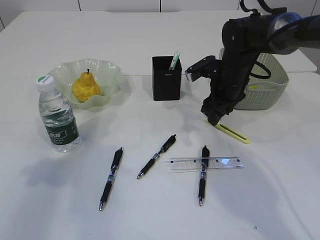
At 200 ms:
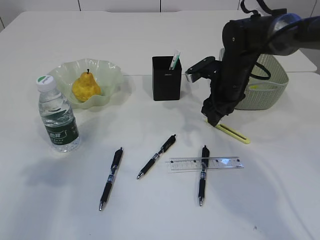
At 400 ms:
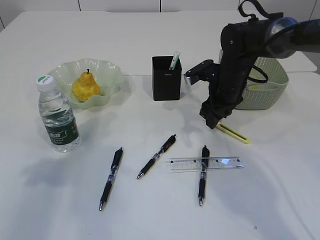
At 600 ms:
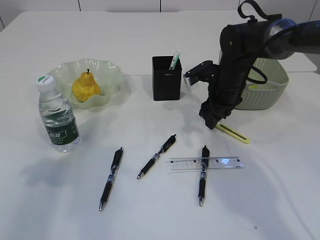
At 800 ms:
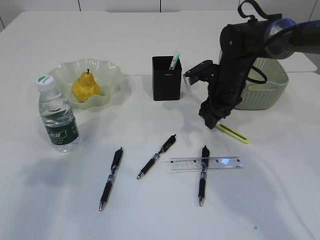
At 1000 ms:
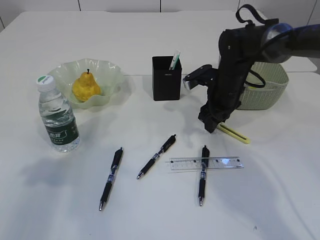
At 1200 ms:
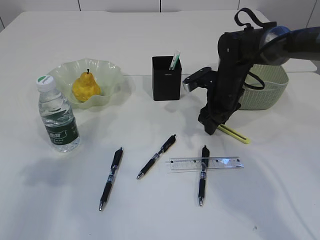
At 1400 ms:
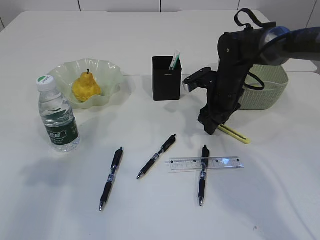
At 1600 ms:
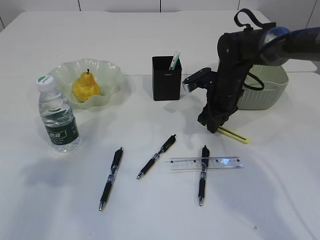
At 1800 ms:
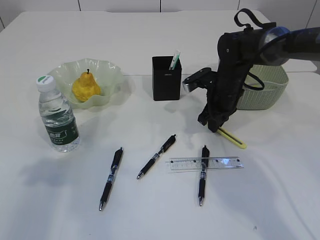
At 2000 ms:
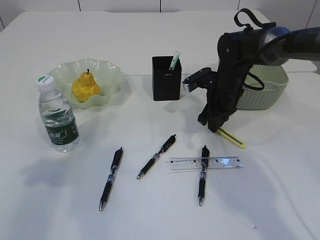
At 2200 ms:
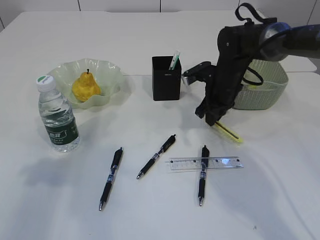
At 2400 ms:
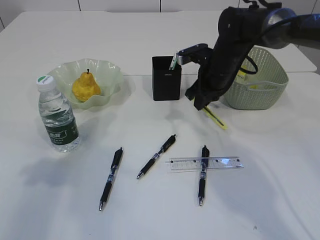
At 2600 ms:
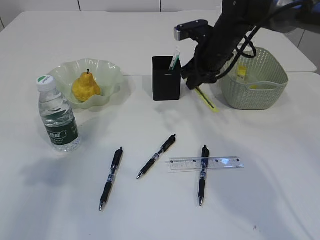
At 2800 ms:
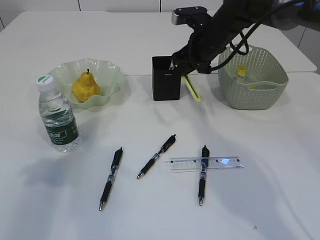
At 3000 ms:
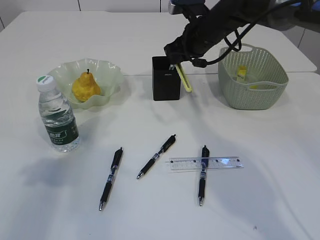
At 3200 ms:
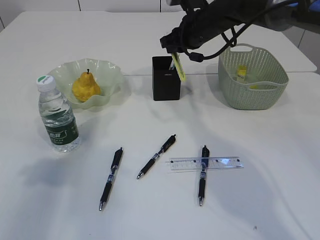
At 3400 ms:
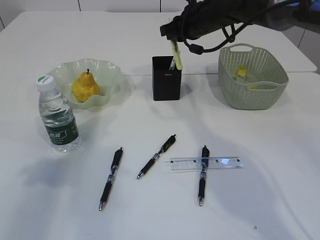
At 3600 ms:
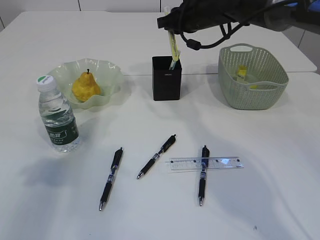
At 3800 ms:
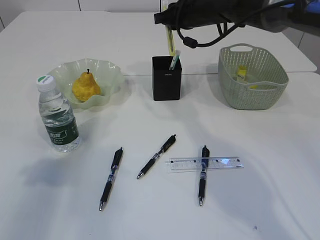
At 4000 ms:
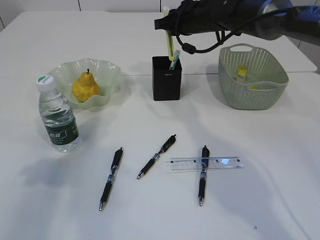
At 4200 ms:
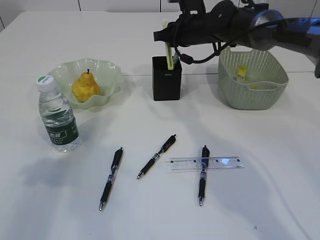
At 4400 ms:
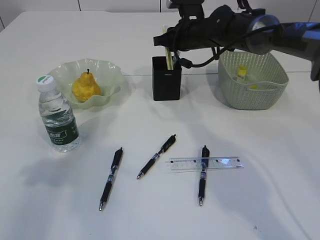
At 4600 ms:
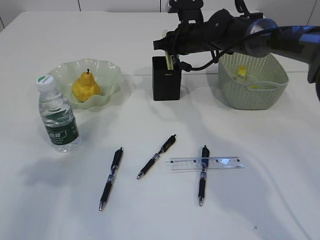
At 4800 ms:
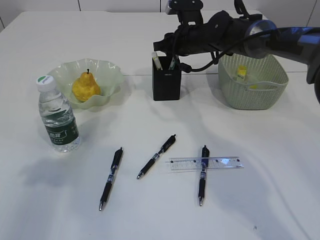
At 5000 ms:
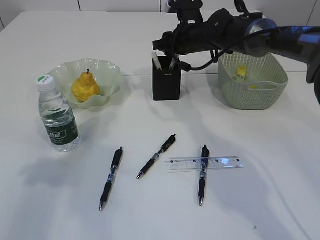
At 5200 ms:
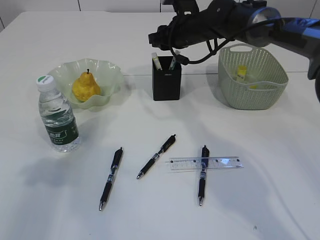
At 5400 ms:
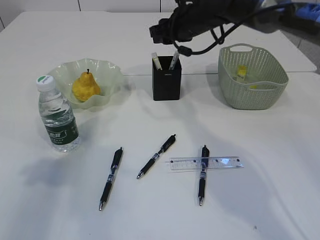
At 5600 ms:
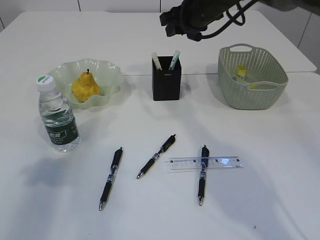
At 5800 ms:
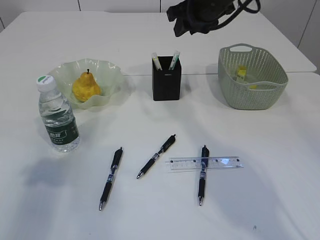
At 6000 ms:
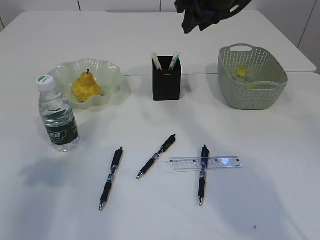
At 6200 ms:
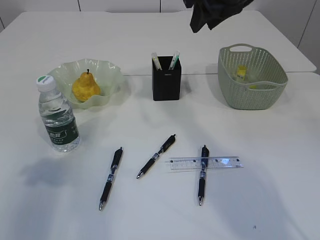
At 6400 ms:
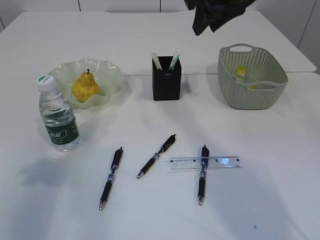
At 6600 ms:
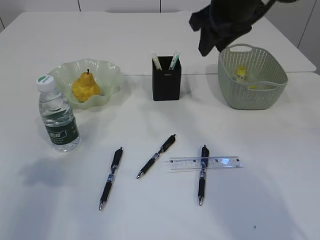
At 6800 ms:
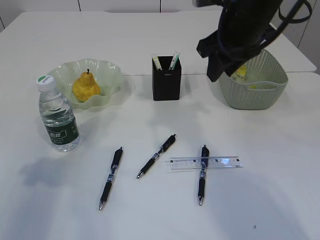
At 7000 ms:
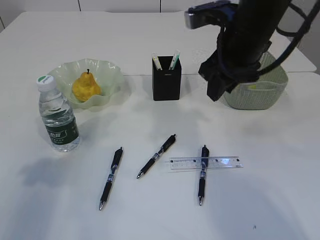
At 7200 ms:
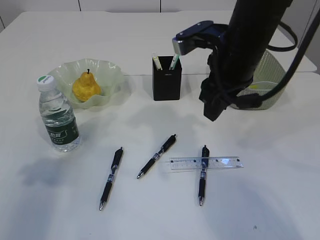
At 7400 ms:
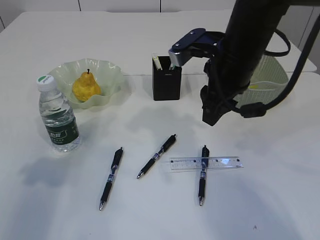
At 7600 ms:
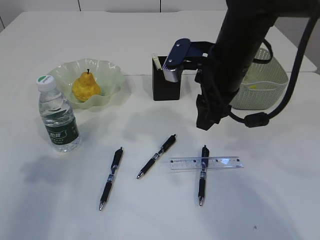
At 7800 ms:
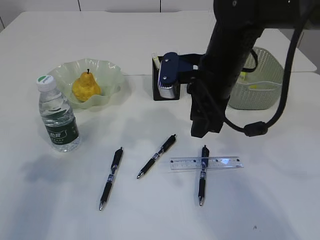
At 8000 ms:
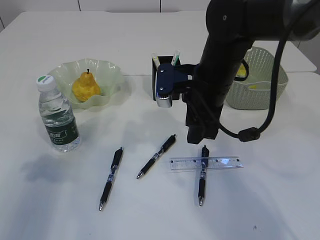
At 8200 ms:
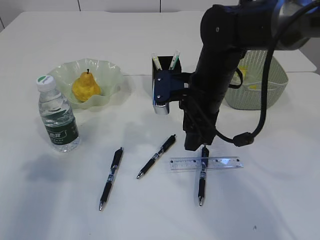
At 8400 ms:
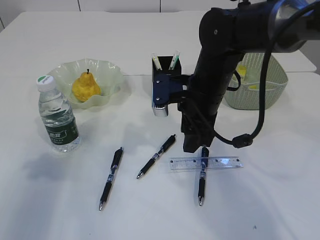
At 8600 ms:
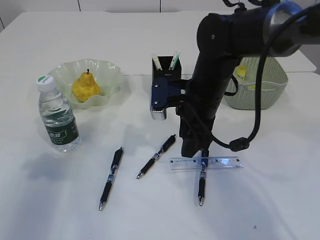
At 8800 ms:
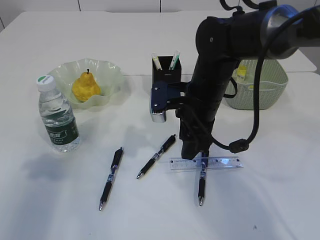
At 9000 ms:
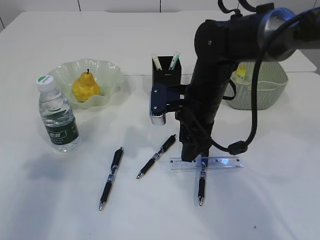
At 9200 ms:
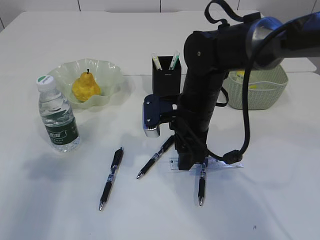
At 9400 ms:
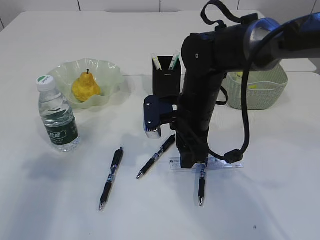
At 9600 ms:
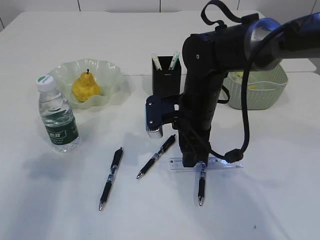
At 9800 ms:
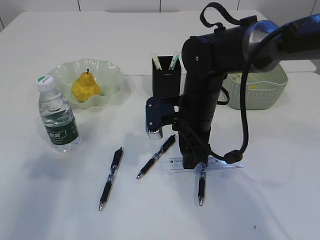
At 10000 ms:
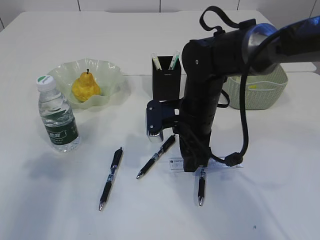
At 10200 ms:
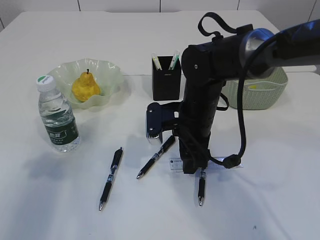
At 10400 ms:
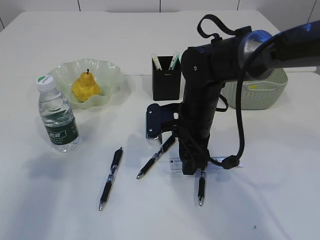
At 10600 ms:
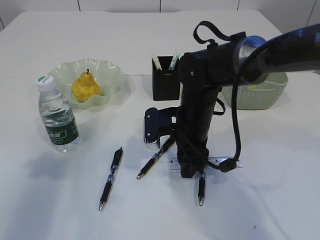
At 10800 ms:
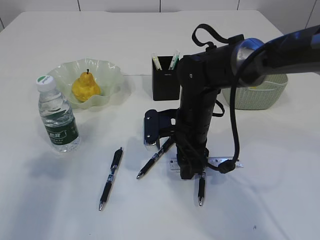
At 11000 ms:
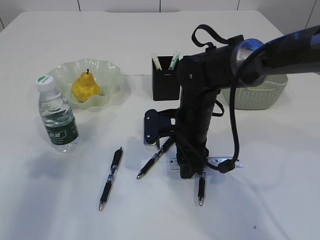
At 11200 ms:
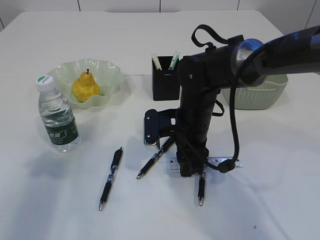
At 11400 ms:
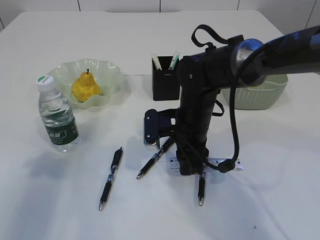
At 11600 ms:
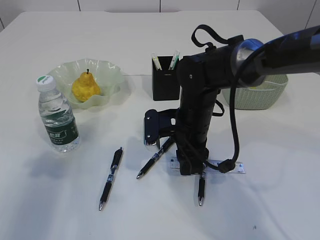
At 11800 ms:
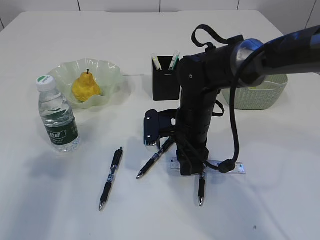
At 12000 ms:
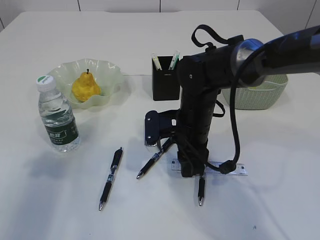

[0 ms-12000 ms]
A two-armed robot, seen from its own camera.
Step, 0 ms to 2600 ms: pick up the yellow knife.
Step, 2800 ms to 7200 ms: place the yellow knife into the pen holder.
0 ms to 1600 ms: The right gripper closes.
1600 ms to 3000 ms: The right gripper is displaced upward by approximately 10 cm.
4400 ms to 6000 ms: The right gripper moves upward and backward, some 15 cm, and opens its fingers.
6000 ms to 7600 ms: The right gripper goes approximately 15 cm backward and downward.
7600 ms to 9000 ms: The right gripper is displaced downward by some 10 cm.
9000 ms to 10400 ms: The grippers stay close to where they were, moving slightly.
10400 ms to 12000 ms: The right gripper closes up.

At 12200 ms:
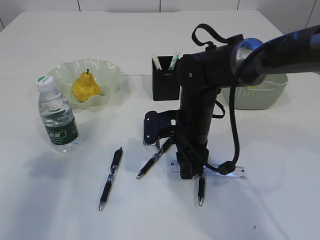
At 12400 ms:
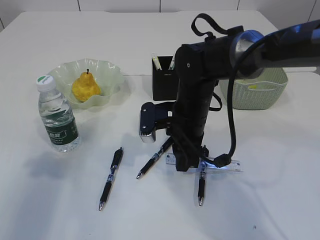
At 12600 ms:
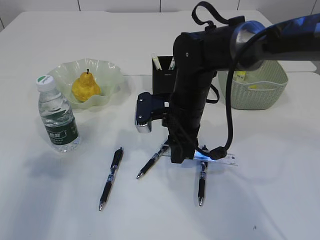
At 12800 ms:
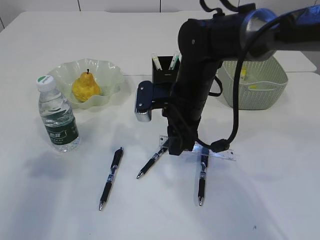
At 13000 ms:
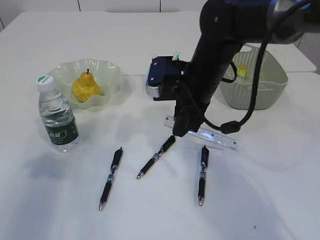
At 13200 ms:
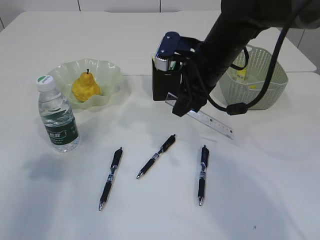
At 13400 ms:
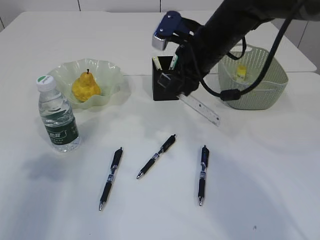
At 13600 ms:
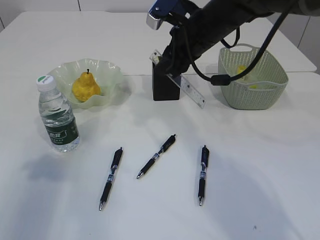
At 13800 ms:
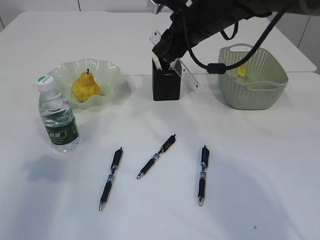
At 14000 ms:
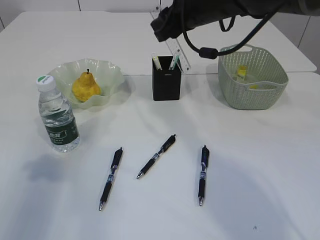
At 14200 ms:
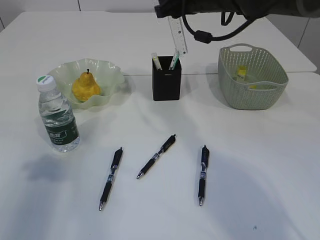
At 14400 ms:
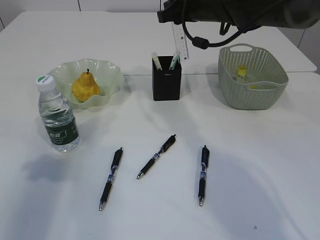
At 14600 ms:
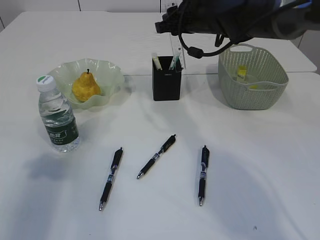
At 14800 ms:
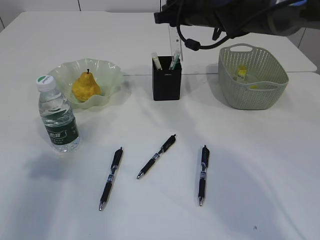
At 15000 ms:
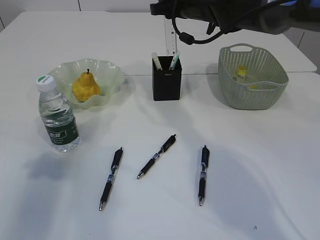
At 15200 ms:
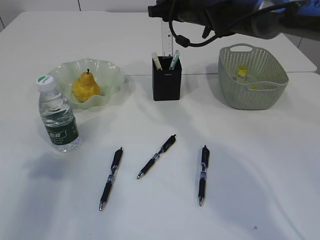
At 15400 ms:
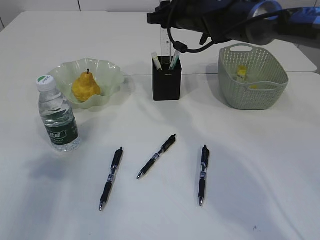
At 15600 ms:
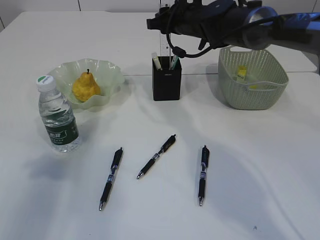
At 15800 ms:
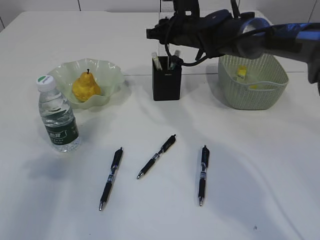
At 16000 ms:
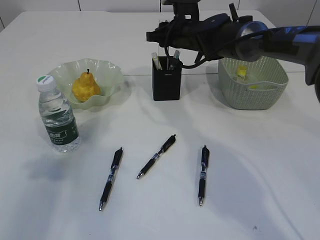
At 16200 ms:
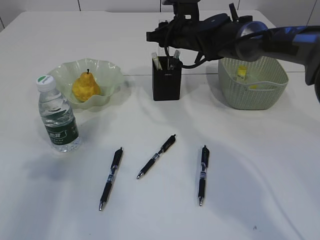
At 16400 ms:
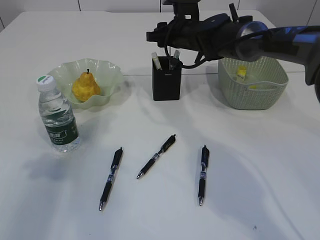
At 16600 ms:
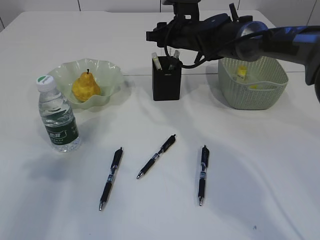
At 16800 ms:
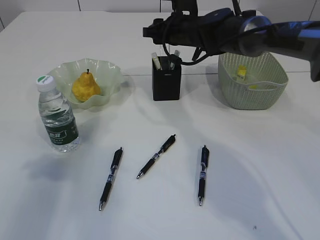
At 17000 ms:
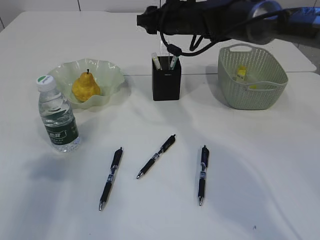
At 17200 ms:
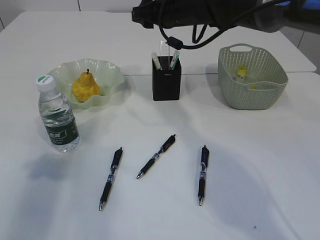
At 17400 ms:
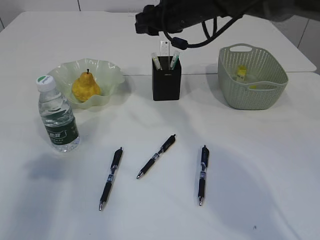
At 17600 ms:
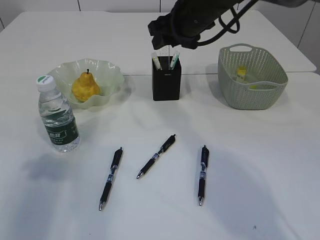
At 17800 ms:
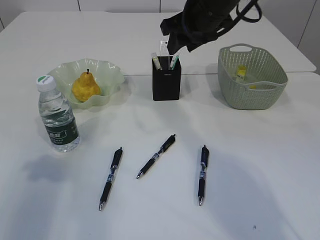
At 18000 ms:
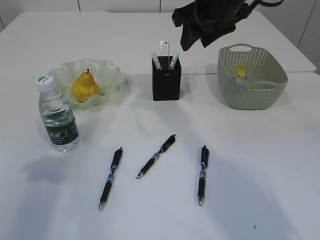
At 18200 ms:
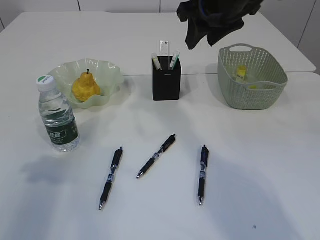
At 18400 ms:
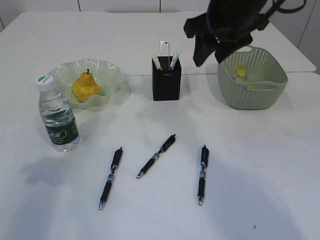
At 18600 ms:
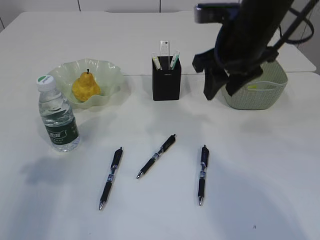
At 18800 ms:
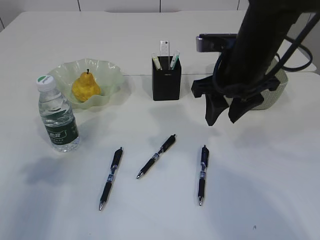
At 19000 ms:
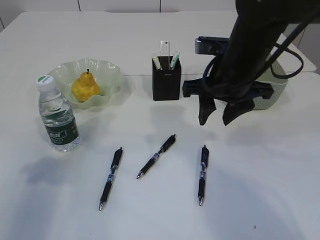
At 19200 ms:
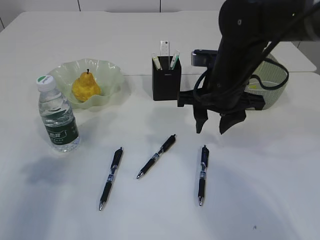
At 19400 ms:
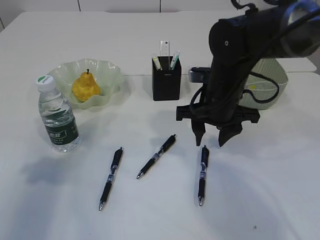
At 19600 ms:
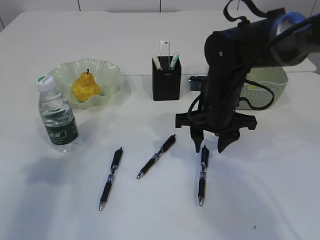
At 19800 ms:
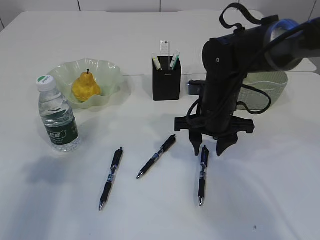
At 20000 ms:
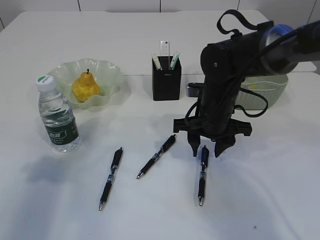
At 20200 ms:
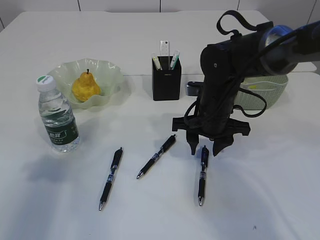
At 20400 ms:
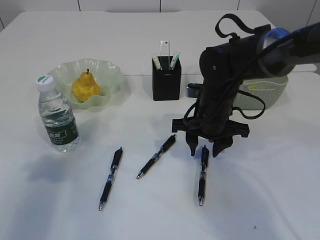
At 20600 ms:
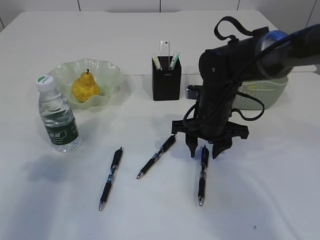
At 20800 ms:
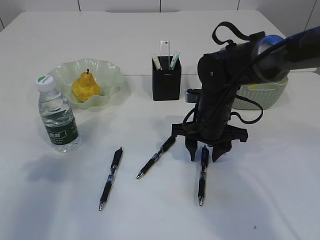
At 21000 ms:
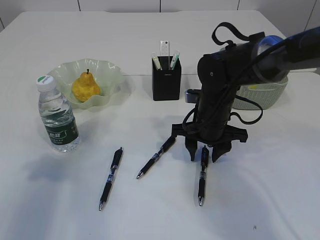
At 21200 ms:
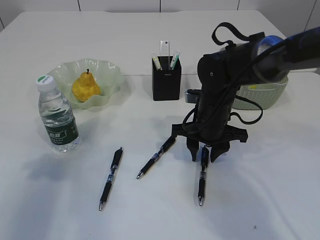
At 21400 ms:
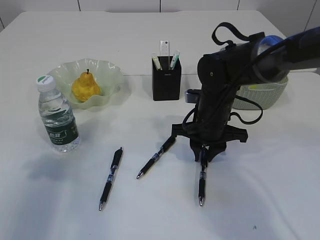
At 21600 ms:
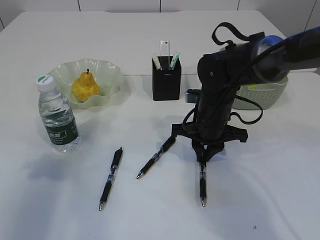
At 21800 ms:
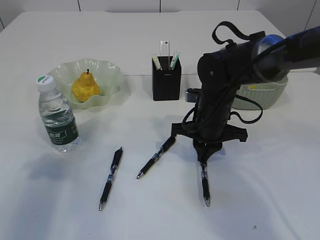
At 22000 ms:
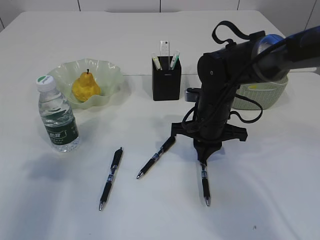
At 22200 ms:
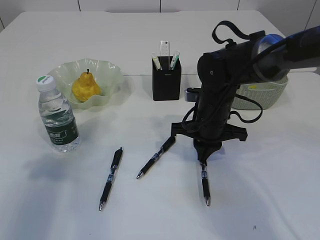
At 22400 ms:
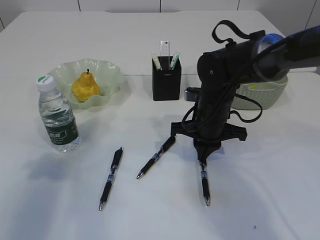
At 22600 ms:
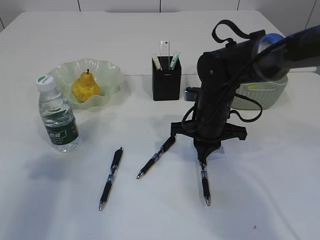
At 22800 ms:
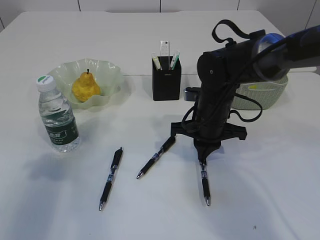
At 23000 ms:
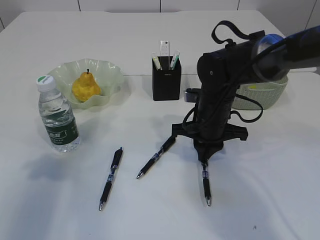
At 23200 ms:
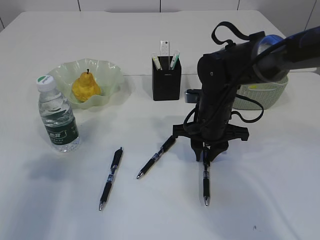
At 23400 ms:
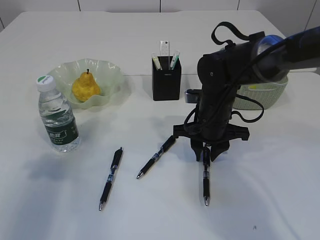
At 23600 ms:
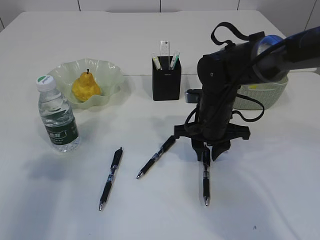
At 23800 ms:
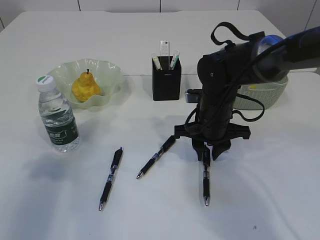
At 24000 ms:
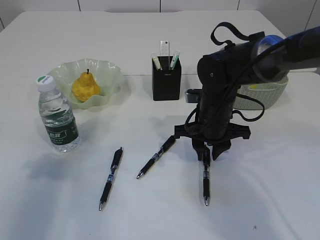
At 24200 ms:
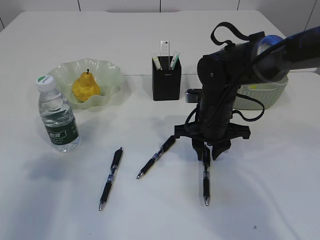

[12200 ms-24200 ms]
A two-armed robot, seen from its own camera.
Step, 14200 ms to 17600 ms: Place the ruler into the pen holder.
12200 ms to 13800 ms: The right gripper goes approximately 15 cm upward and forward.
13800 ms to 15200 ms: The right gripper travels forward by roughly 10 cm.
15200 ms to 16600 ms: The right gripper heads downward, covering about 5 cm.
16600 ms to 18200 ms: The right gripper travels upward and backward by some 20 cm.
18200 ms to 19800 ms: The right gripper is displaced downward by roughly 20 cm.
19800 ms to 21200 ms: The grippers move only a little.
21200 ms to 22600 ms: The right gripper closes up.
22600 ms to 24200 ms: The right gripper opens up.
